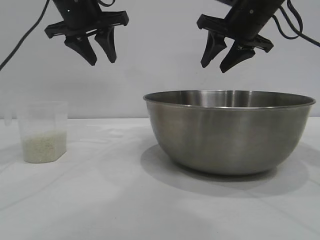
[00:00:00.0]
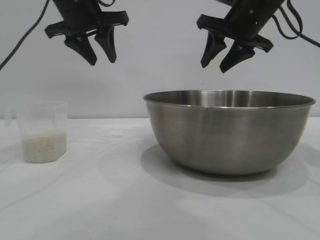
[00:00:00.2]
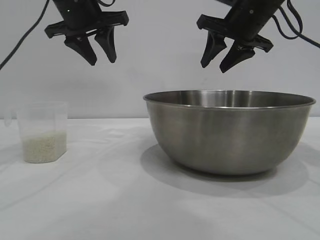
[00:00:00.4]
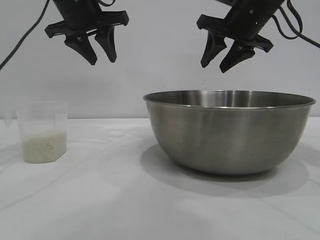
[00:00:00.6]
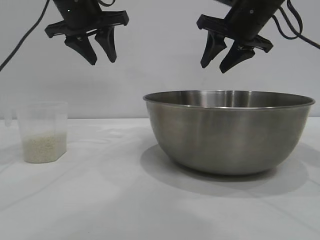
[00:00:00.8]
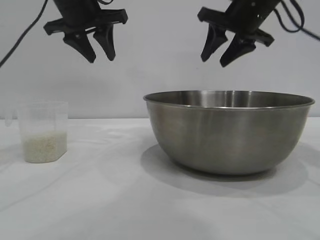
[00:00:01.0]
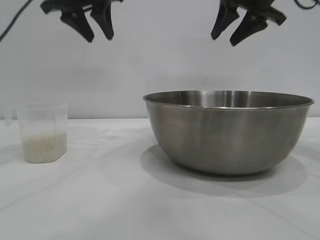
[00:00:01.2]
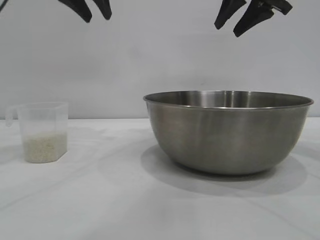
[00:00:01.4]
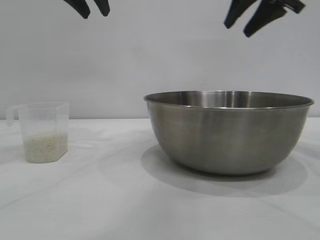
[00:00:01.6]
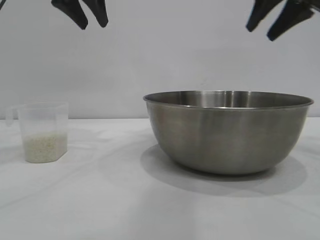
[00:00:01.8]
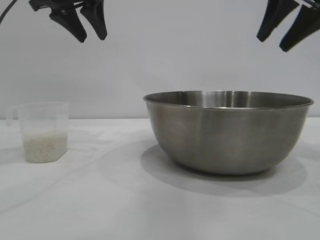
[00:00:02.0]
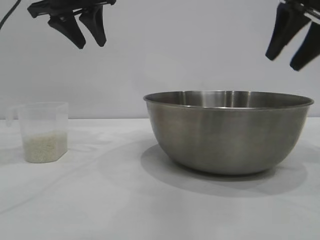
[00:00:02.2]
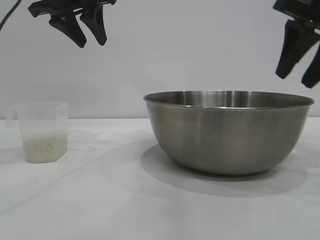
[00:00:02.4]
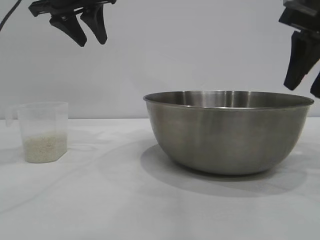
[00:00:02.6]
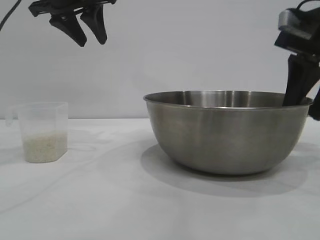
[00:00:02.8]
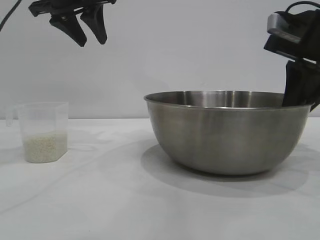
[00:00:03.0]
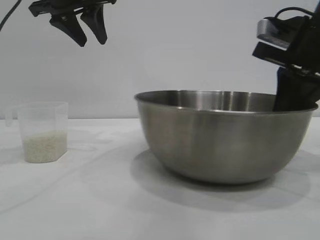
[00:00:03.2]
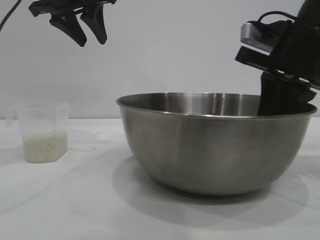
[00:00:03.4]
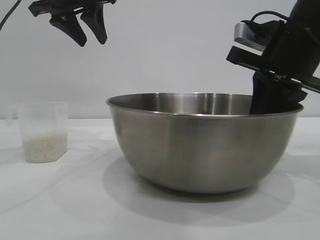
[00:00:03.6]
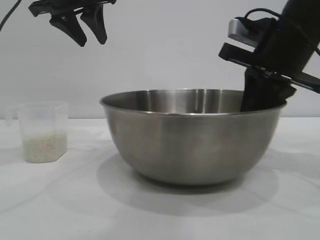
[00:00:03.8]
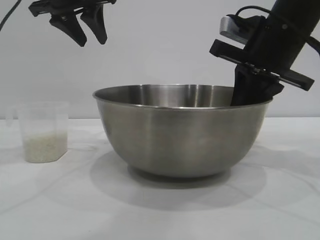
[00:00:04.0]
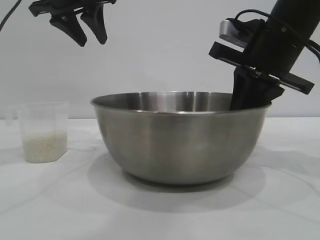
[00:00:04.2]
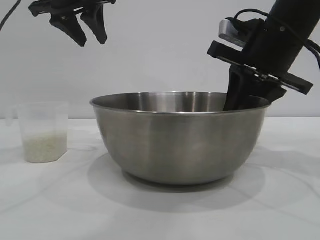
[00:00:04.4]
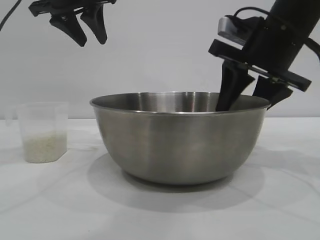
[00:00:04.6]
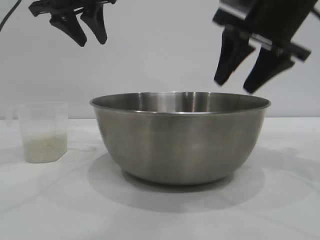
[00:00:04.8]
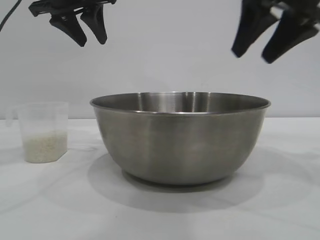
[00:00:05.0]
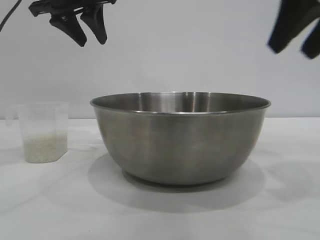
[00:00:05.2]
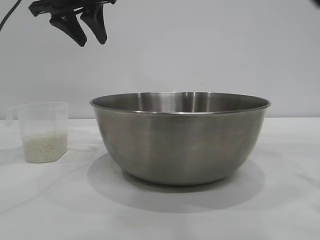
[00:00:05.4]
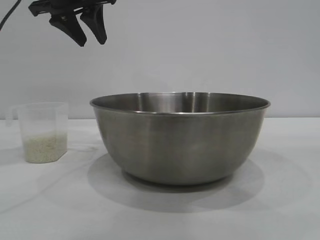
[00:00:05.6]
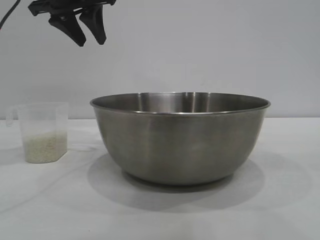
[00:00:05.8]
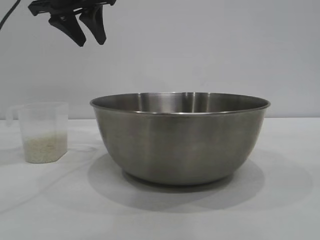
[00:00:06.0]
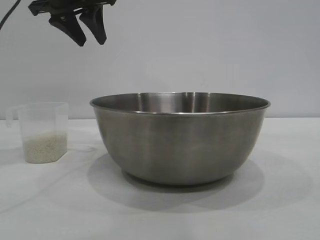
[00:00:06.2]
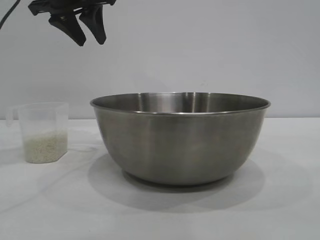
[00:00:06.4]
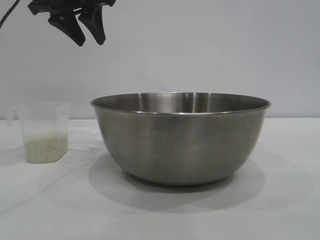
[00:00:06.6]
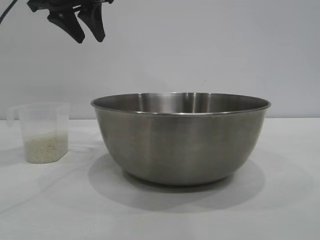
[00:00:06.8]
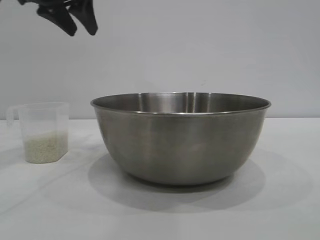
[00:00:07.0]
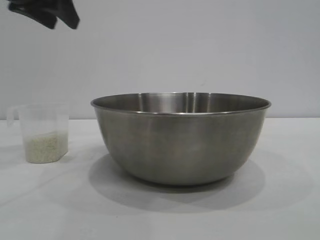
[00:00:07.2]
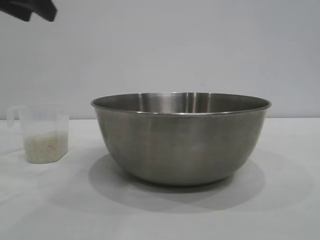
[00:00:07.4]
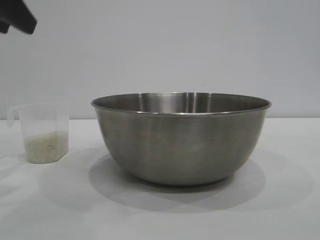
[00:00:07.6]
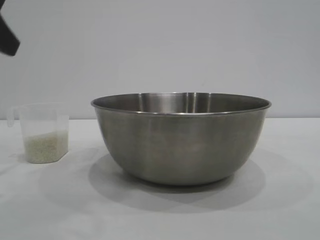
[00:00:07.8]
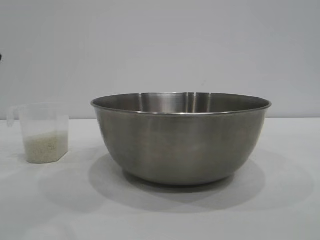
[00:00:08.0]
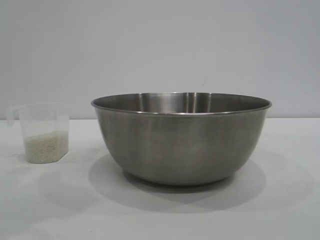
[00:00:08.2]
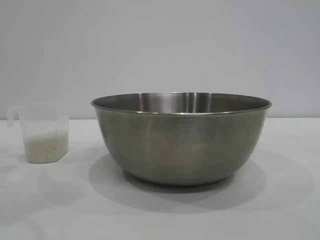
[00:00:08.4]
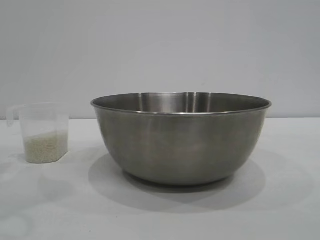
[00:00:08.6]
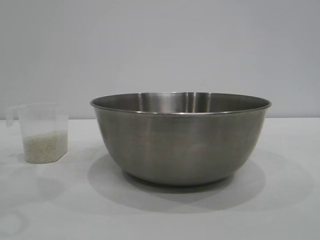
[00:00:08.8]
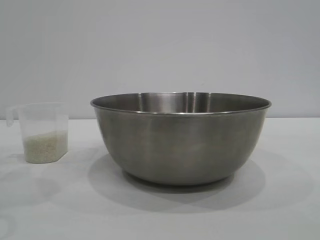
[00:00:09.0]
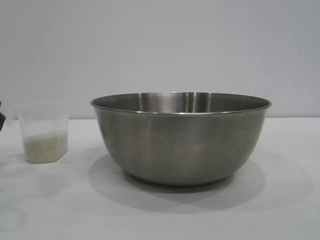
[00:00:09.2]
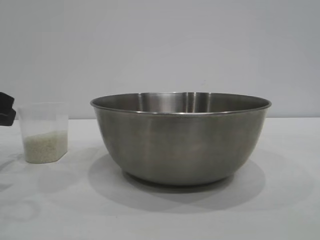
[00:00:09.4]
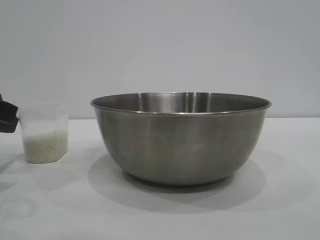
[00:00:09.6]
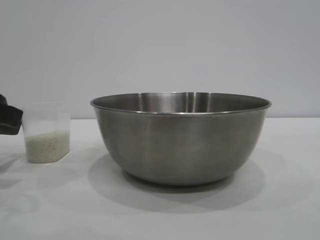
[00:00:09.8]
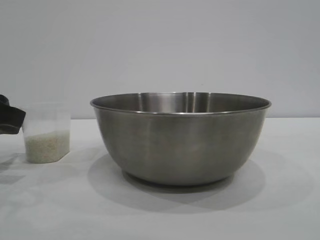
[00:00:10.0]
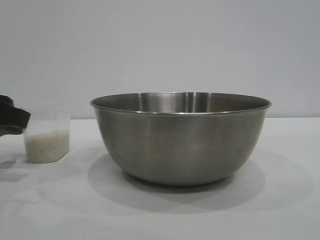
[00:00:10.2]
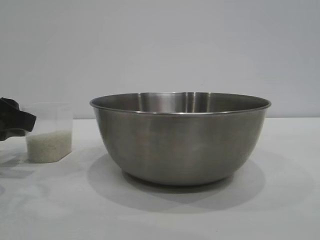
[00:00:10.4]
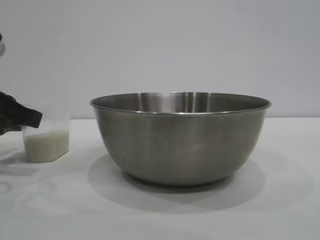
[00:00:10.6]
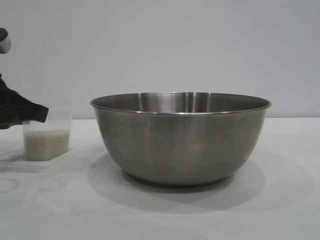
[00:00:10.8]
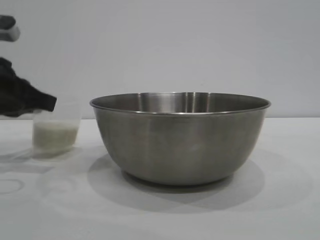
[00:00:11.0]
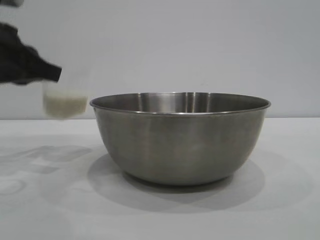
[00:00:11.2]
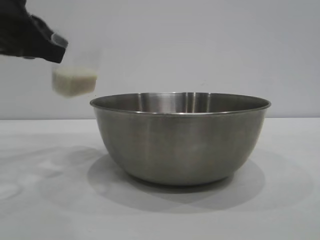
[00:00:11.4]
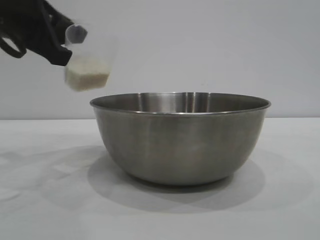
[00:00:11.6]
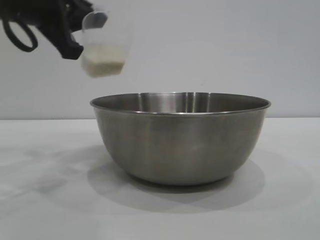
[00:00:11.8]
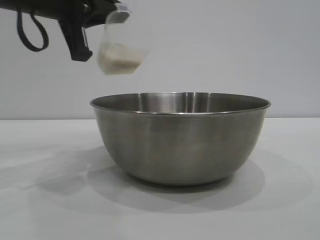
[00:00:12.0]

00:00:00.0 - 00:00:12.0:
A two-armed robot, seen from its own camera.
Task of the whole recording: the right gripper grasp the rice container and place it in the center of the table, the left gripper grasp the rice scoop and pour the rice into the rice container.
Step, 00:00:00.0 - 00:00:04.8: Move the bowl to the center of view with the right gripper.
Step, 00:00:05.0 - 00:00:11.2: Pick up the cup with rice in it with the left gripper.

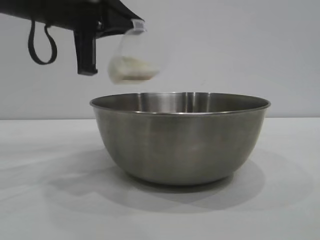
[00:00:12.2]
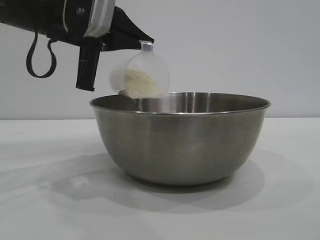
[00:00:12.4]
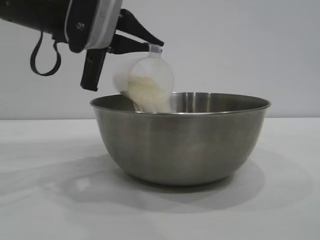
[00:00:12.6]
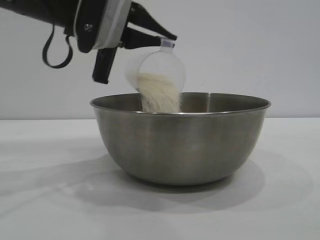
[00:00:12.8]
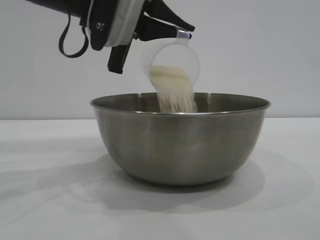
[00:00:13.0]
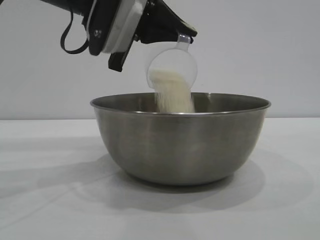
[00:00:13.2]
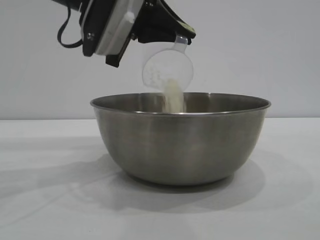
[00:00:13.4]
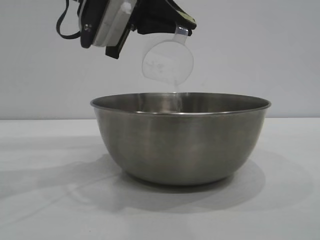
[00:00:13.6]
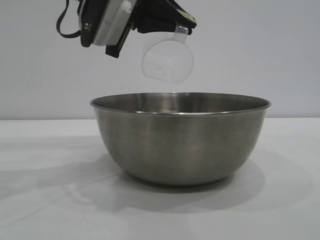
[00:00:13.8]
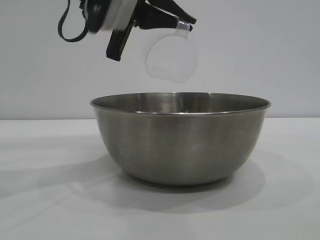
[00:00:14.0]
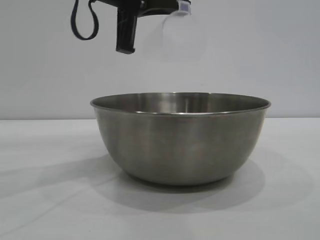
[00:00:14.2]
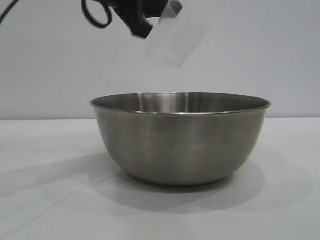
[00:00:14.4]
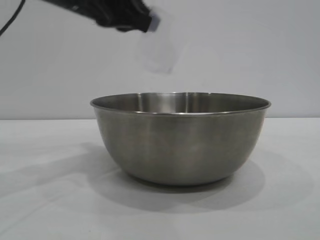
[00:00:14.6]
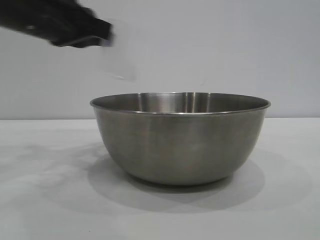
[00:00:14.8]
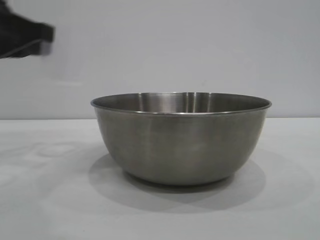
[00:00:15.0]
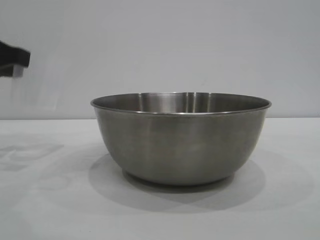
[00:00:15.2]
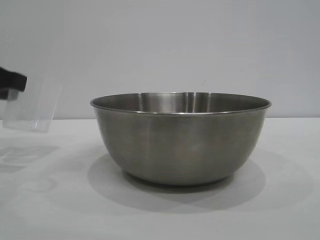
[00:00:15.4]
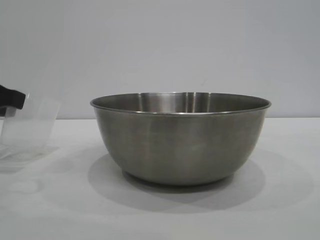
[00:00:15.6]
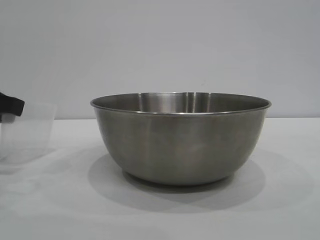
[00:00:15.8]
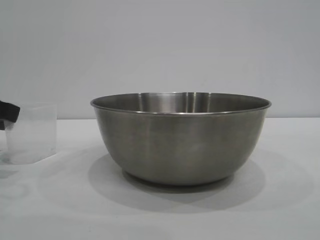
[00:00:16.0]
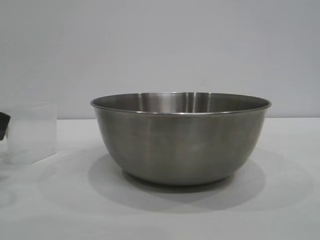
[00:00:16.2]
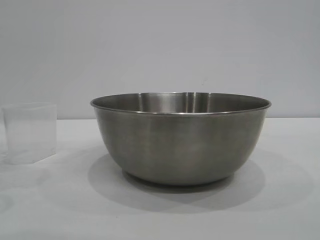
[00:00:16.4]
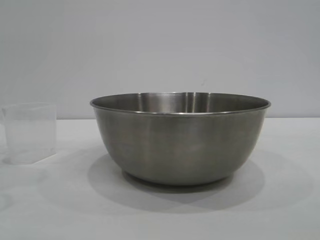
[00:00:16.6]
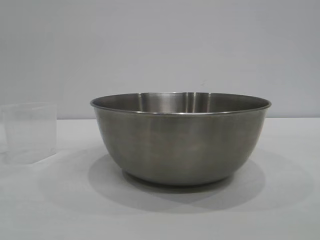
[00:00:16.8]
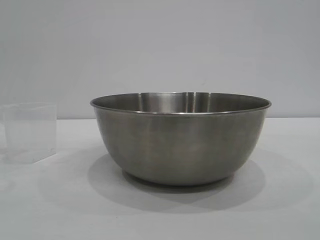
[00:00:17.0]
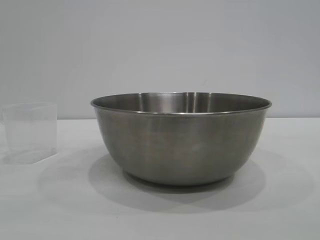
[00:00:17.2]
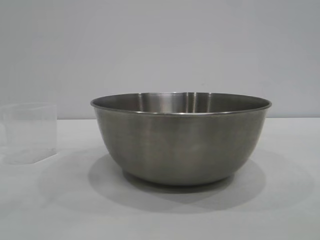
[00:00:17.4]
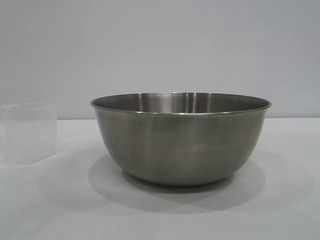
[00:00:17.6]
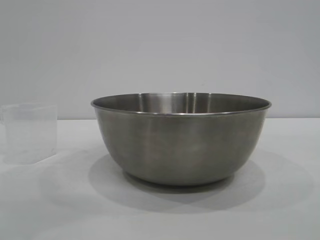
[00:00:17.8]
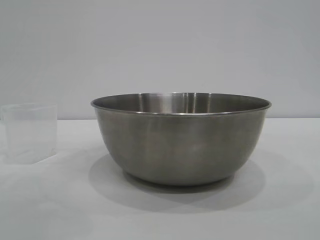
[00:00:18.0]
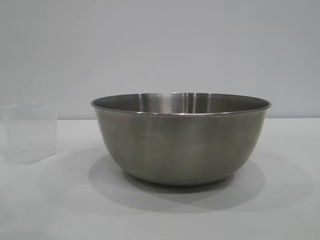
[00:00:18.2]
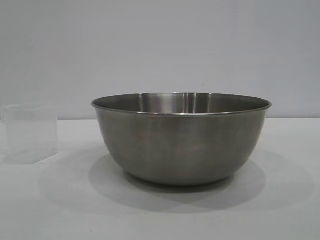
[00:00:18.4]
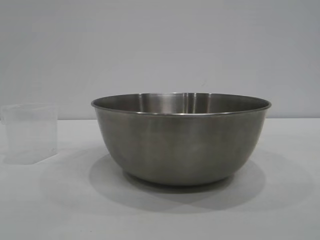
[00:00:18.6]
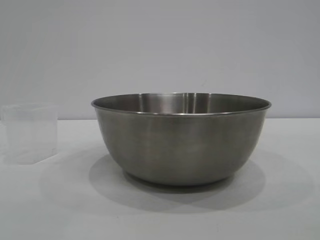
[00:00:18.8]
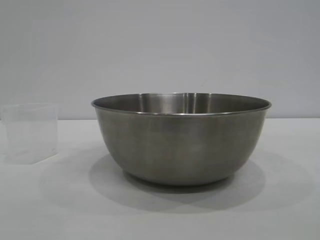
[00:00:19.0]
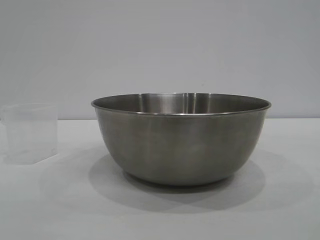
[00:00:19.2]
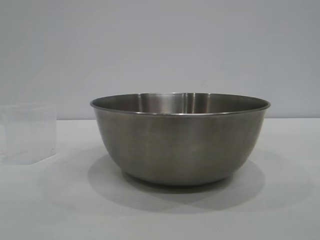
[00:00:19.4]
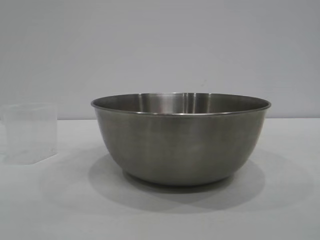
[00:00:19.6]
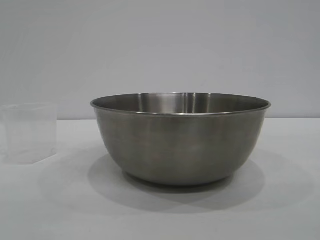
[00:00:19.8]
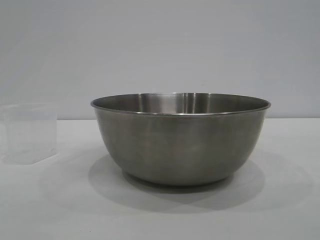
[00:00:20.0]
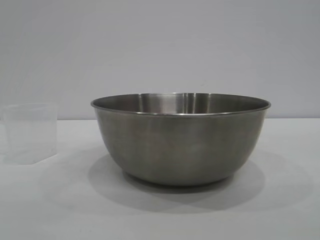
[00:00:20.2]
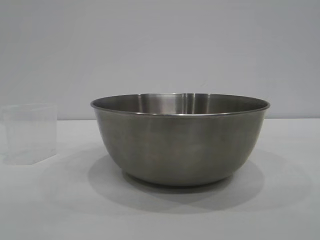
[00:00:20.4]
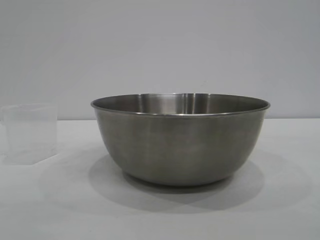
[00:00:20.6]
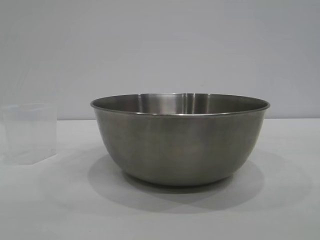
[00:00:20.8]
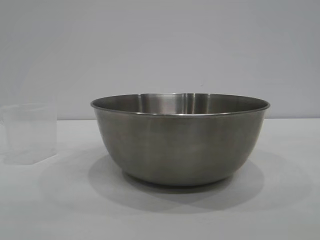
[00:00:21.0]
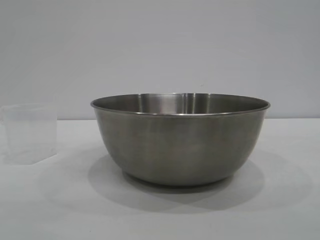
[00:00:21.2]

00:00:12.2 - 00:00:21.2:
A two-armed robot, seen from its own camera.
Task of the whole recording: the right gripper grasp the rice container and place it in the center of the table, the left gripper grasp the rice scoop and pour the rice into the rice container.
Step, 00:00:12.2 - 00:00:14.2: Pour the rice from the cup into the bowl with the left gripper.
Step, 00:00:14.4 - 00:00:16.6: Place the cup on the table with the left gripper.
